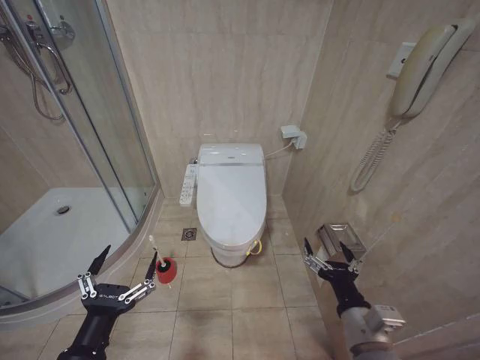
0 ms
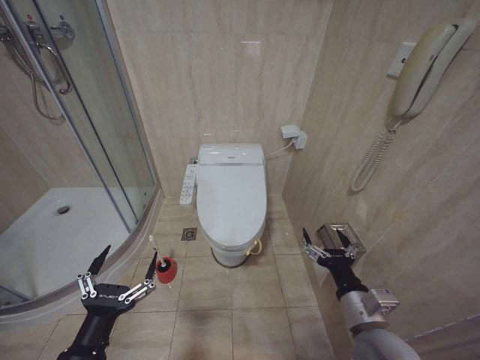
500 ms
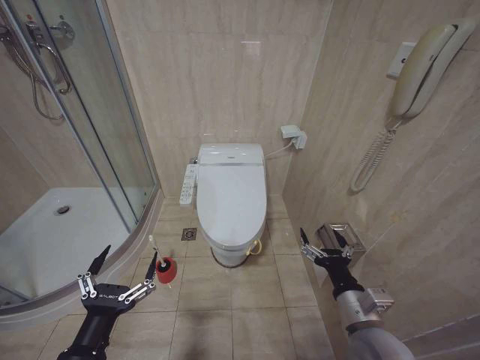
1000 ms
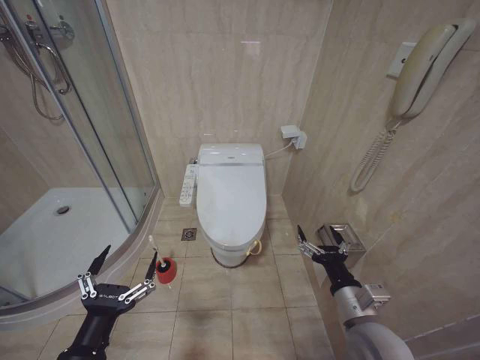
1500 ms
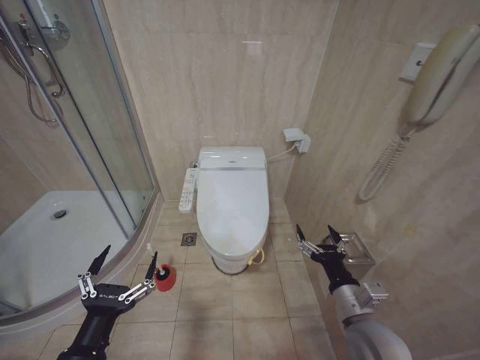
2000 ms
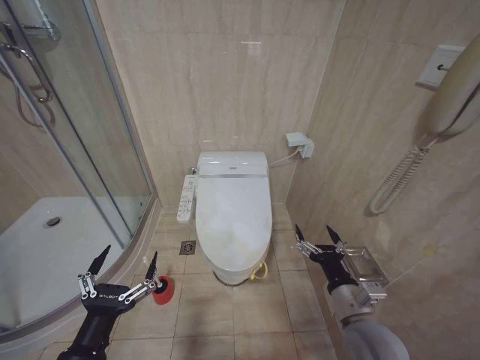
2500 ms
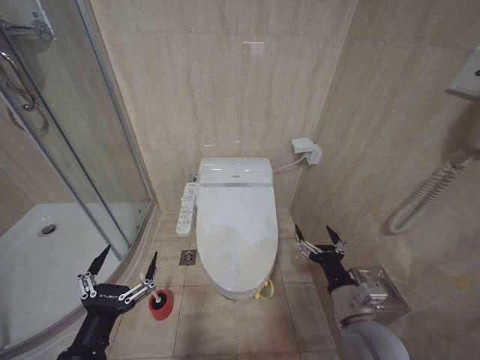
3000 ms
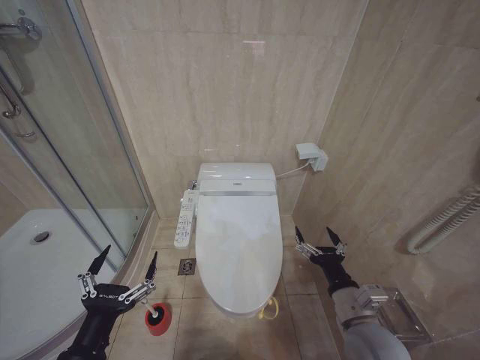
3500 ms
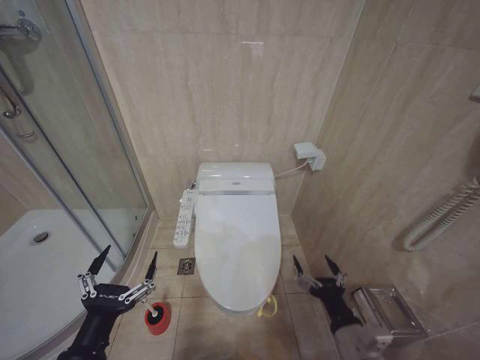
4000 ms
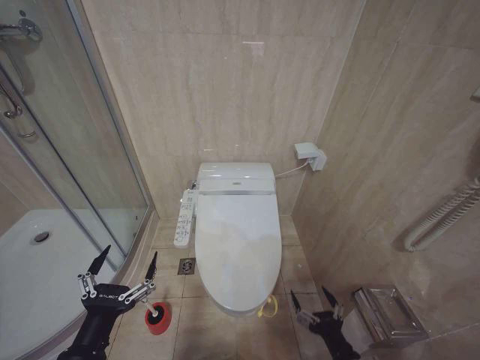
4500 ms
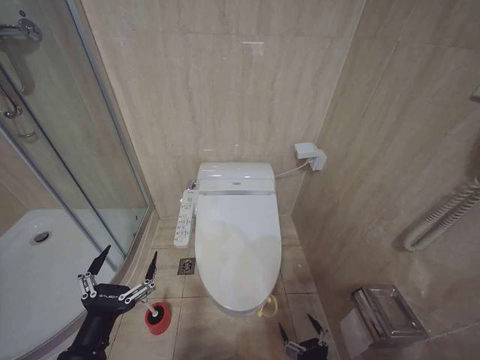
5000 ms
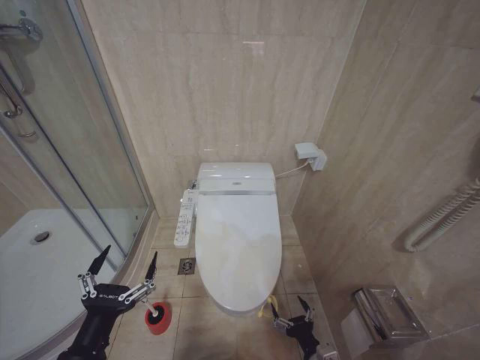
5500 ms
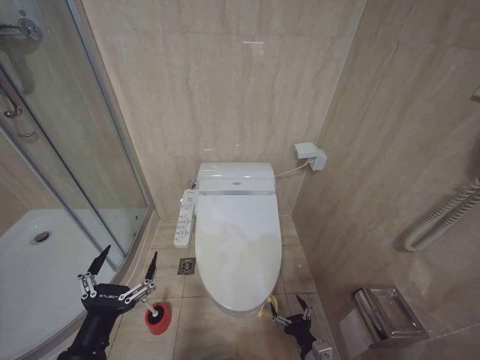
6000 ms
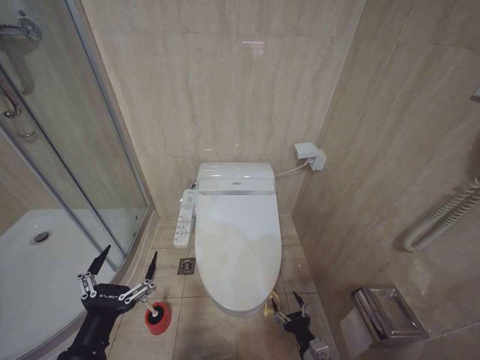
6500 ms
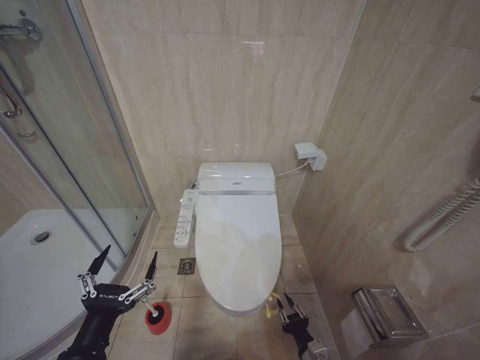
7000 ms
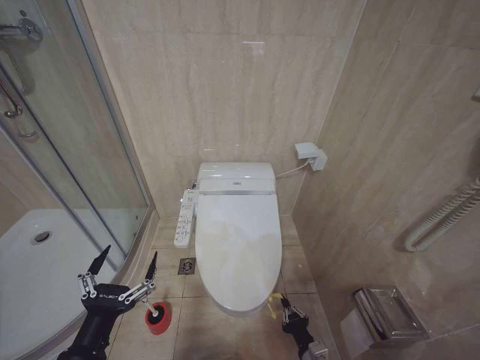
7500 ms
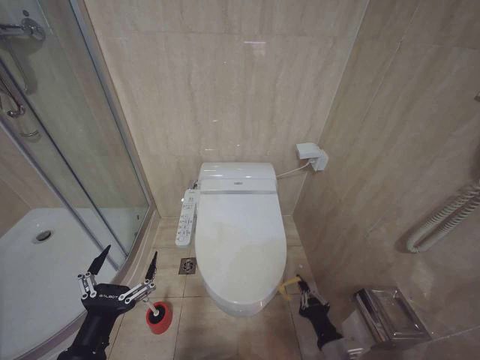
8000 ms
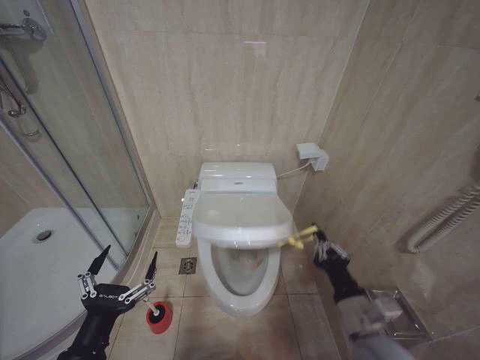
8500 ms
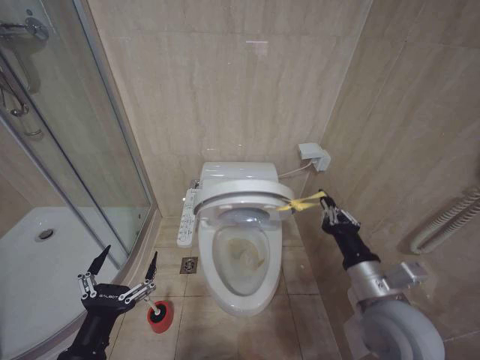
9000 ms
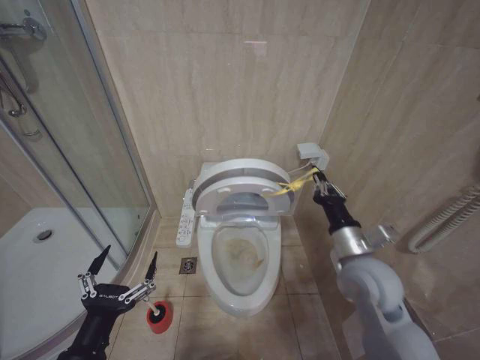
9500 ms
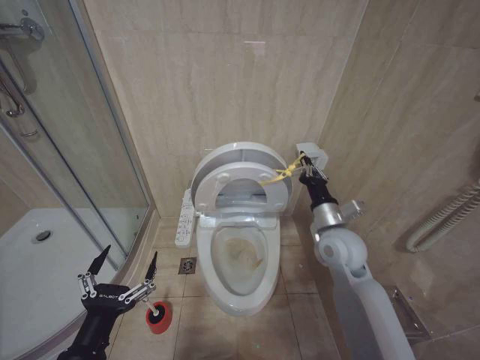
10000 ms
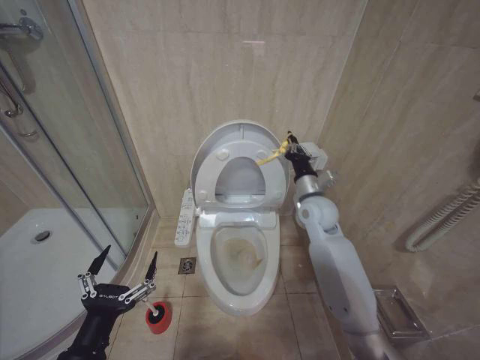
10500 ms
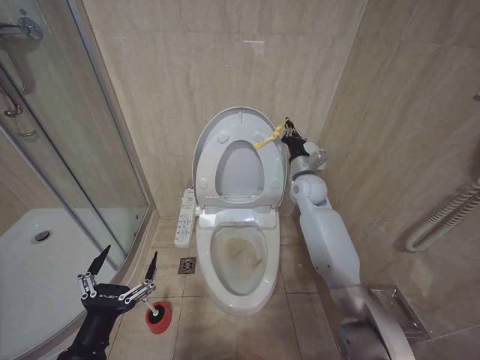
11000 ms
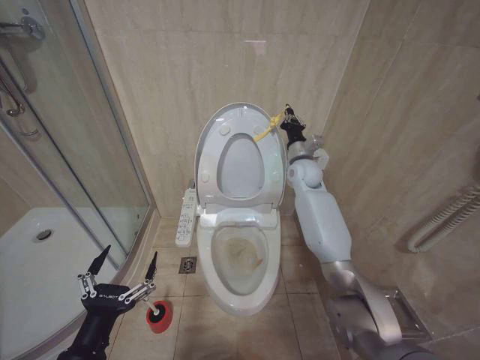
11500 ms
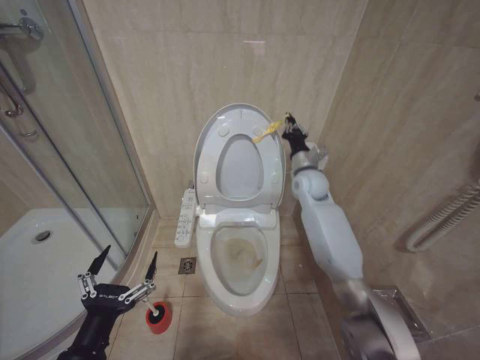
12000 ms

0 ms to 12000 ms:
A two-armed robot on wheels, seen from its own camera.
Task of the whole recording: Open the toilet lid, clean the toilet bowl with a toilet brush, close the toilet lid, and flush.
2000 ms to 4000 ms: The right gripper moves roughly 5 cm.
4000 ms to 6000 ms: The right gripper moves downward, roughly 15 cm.
6000 ms to 8000 ms: The right gripper changes place by some 5 cm, and closes.
8000 ms to 10000 ms: The right gripper moves upward and forward, some 30 cm.
10000 ms to 12000 ms: The right gripper travels forward by roughly 20 cm.

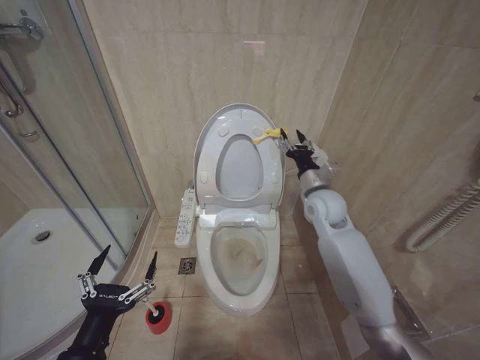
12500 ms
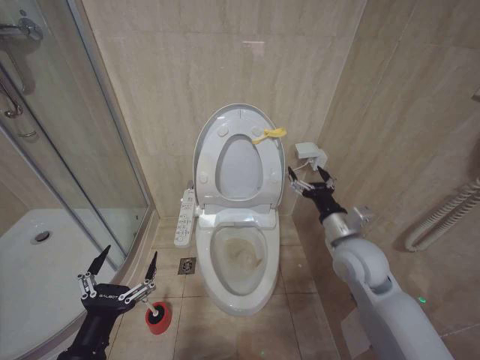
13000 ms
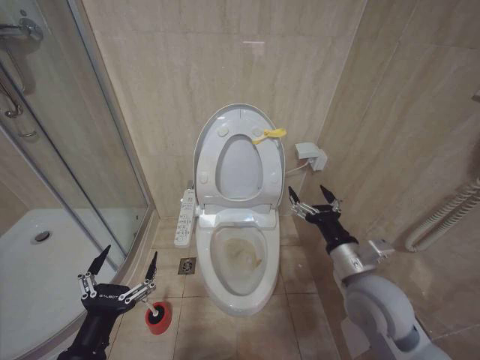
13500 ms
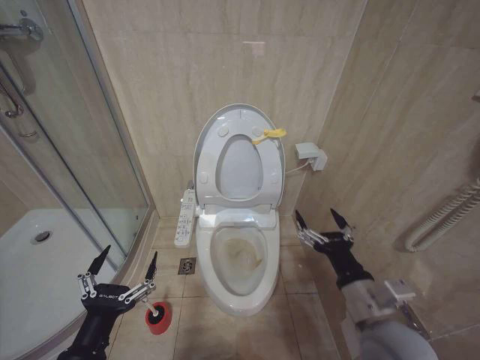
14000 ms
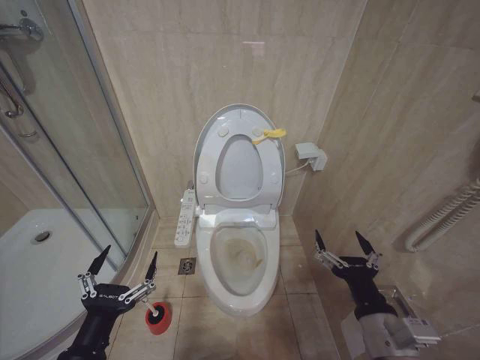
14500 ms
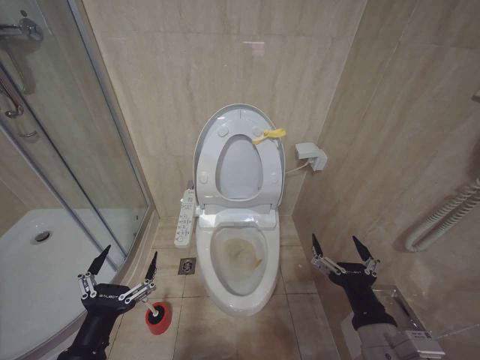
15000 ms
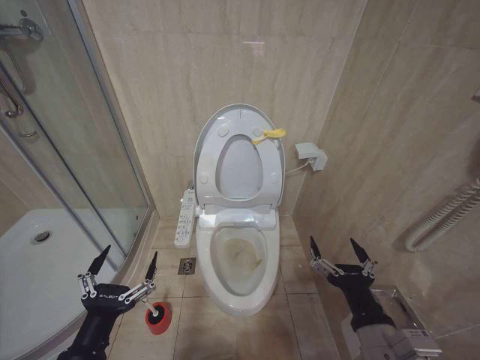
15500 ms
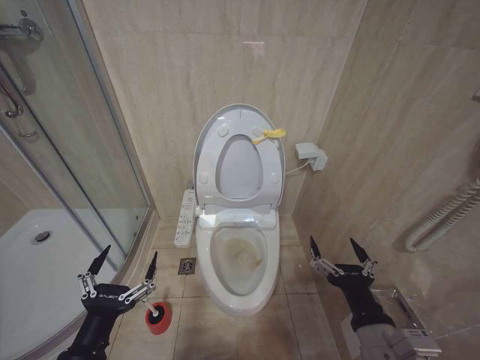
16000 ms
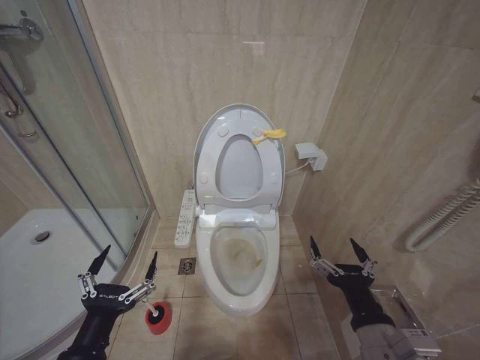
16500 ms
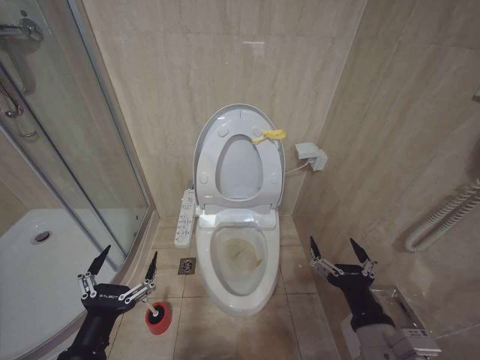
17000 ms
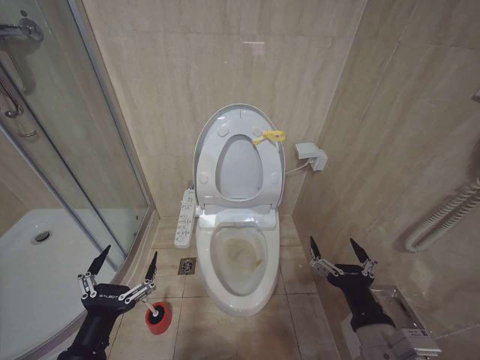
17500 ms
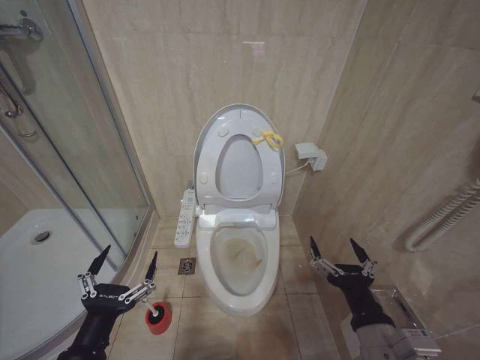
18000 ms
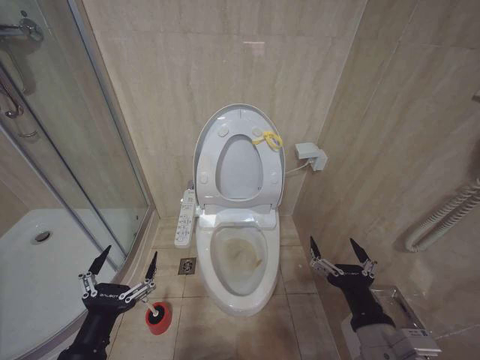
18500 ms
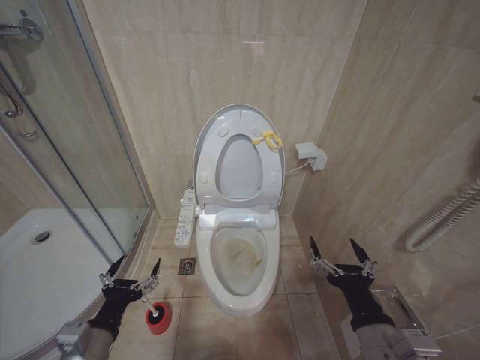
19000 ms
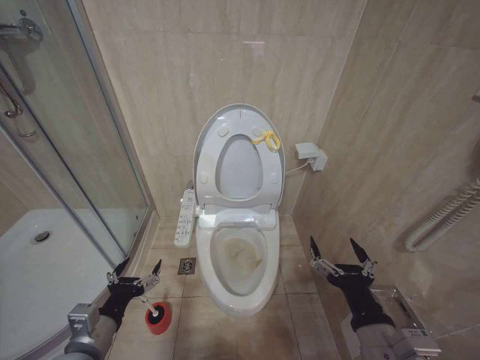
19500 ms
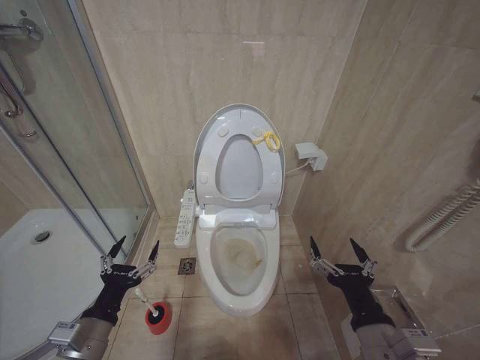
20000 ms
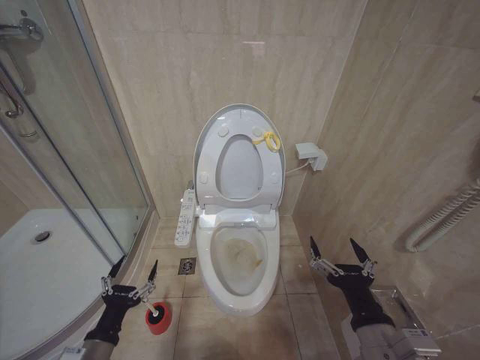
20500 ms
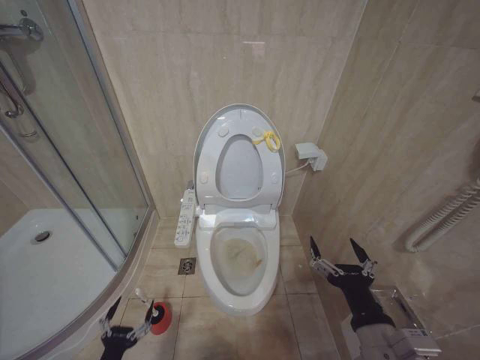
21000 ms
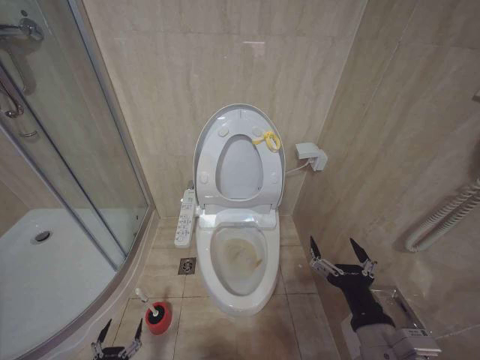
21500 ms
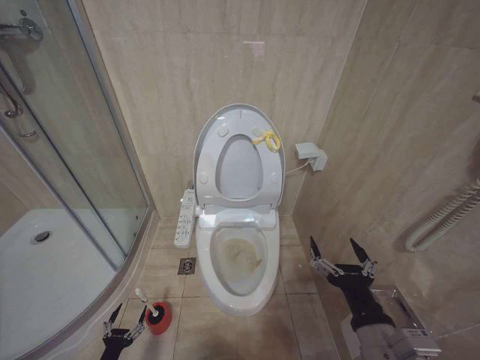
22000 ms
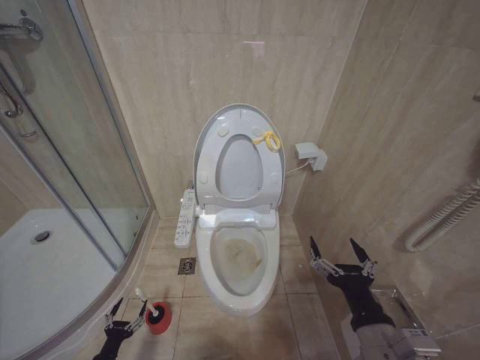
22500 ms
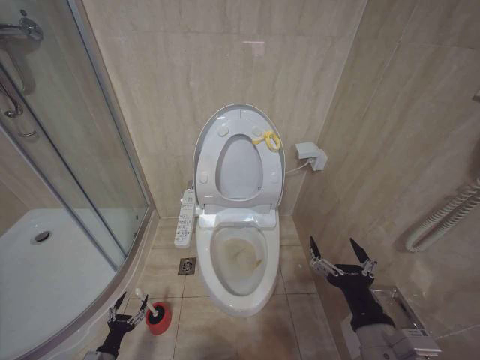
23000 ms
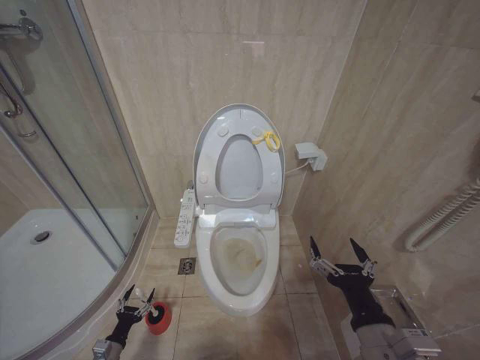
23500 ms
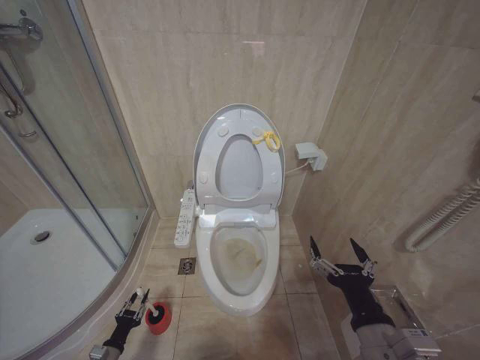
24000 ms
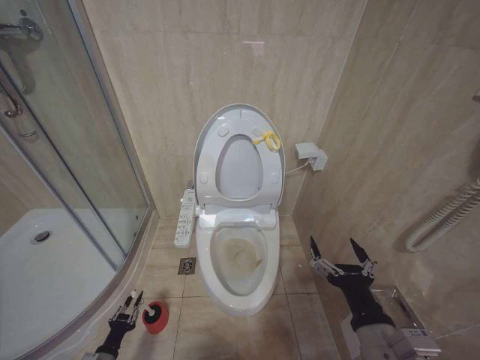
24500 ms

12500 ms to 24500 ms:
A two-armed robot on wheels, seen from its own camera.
Task of the whole recording: Open the toilet lid, clean the toilet bowl with a toilet brush, close the toilet lid, and flush.
12500 ms to 14500 ms: The right gripper goes roughly 35 cm backward, and opens.
14500 ms to 16500 ms: The grippers stay close to where they were, moving slightly.
16500 ms to 18500 ms: Both grippers stay put.
18500 ms to 20500 ms: The left gripper heads downward and forward, covering roughly 10 cm.
20500 ms to 22500 ms: The left gripper heads downward, covering about 25 cm.
22500 ms to 24500 ms: The left gripper closes.

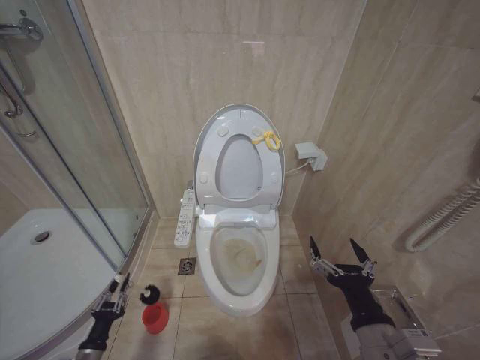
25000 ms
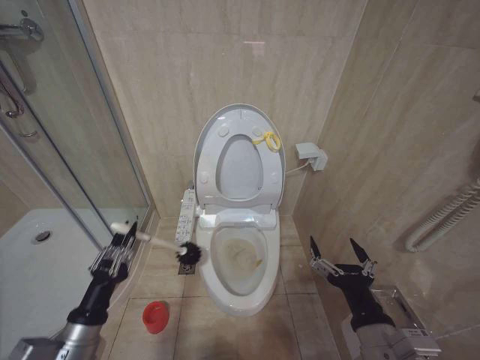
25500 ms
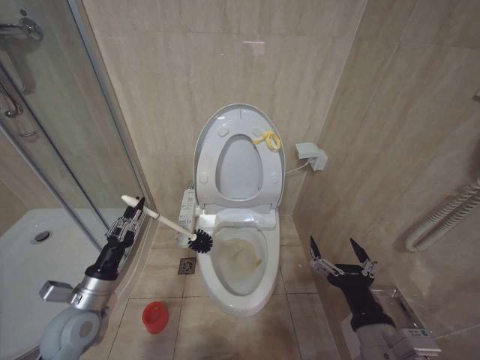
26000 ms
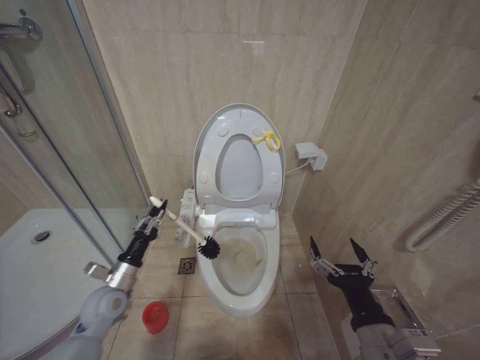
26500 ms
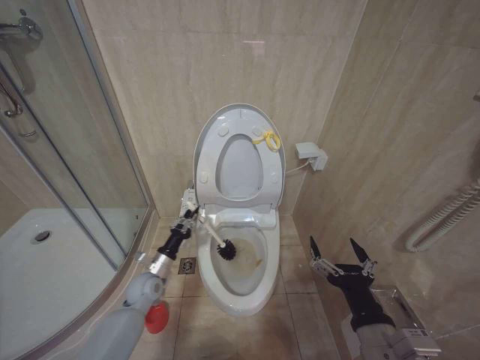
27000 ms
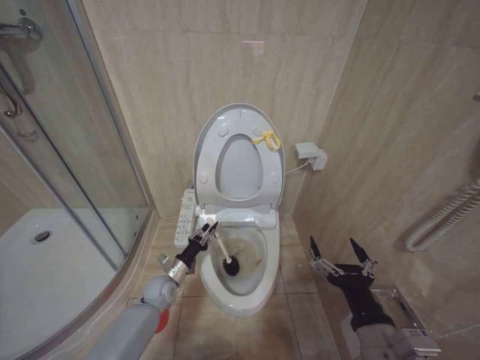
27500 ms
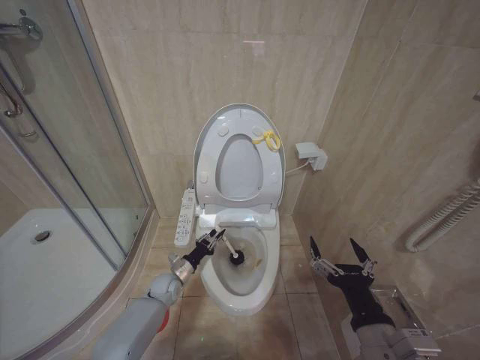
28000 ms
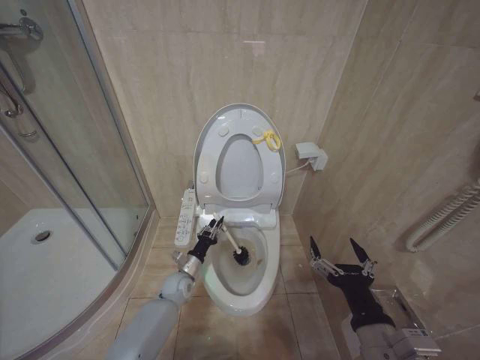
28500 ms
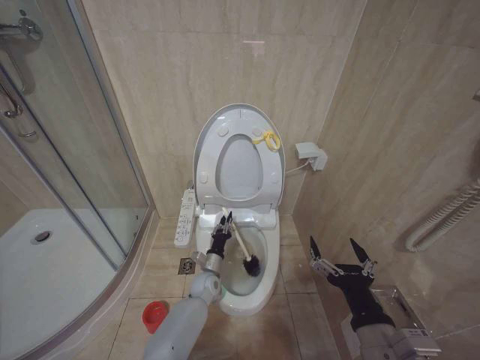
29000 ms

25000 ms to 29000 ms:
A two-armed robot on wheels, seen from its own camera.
Task of the whole recording: Open the toilet lid, clean the toilet bowl with a toilet brush, close the toilet lid, and flush.
25000 ms to 27000 ms: The left gripper shifts about 25 cm forward, to the right and upward.
27000 ms to 29000 ms: The left gripper heads to the right and downward, covering some 20 cm.
